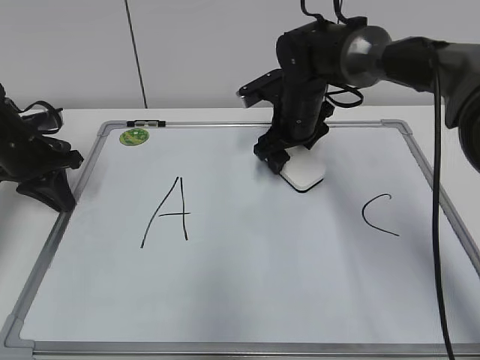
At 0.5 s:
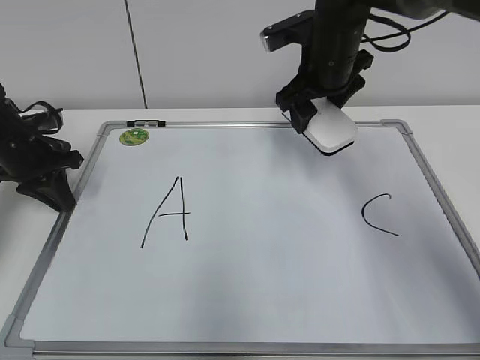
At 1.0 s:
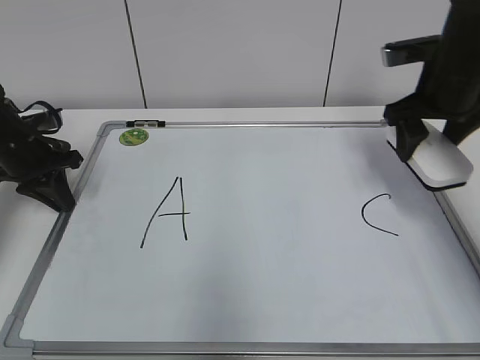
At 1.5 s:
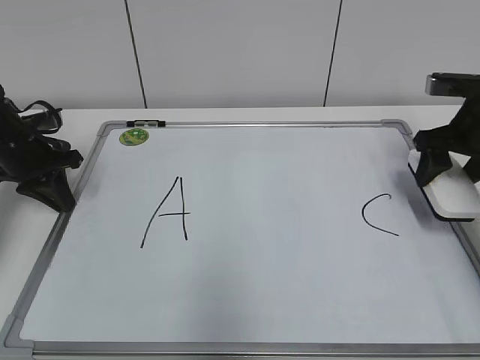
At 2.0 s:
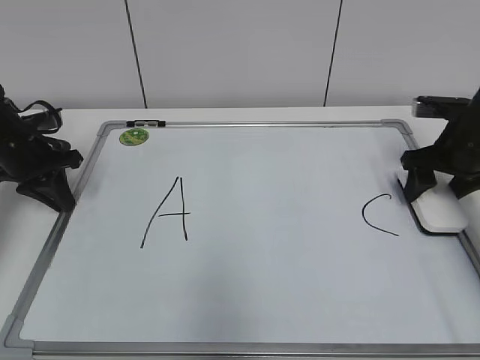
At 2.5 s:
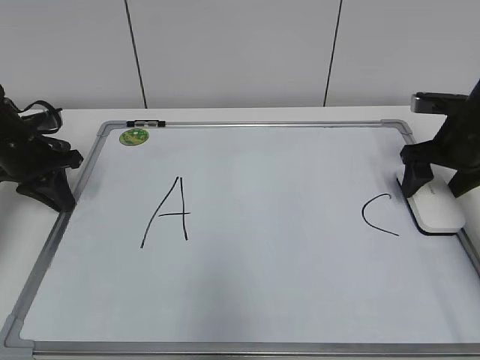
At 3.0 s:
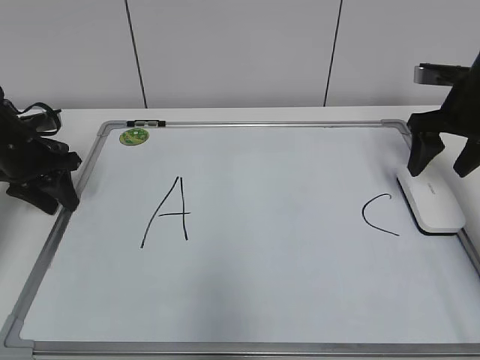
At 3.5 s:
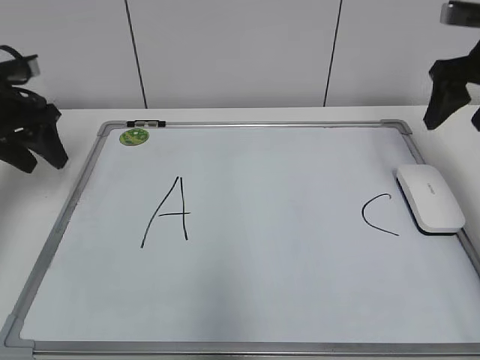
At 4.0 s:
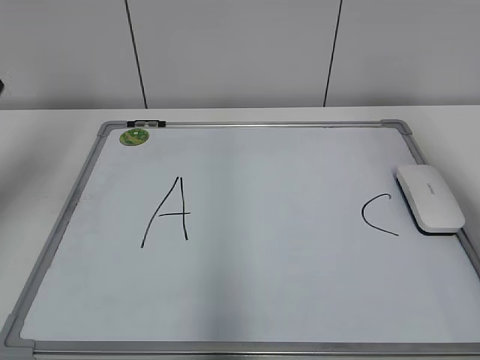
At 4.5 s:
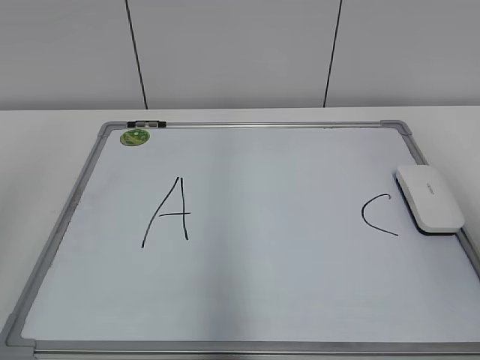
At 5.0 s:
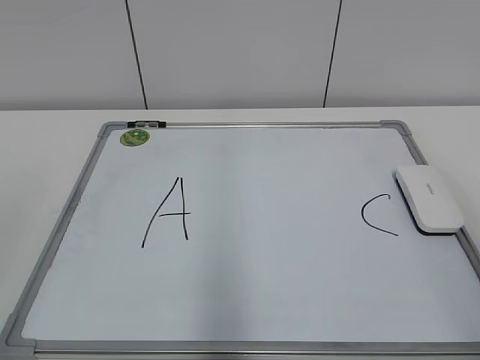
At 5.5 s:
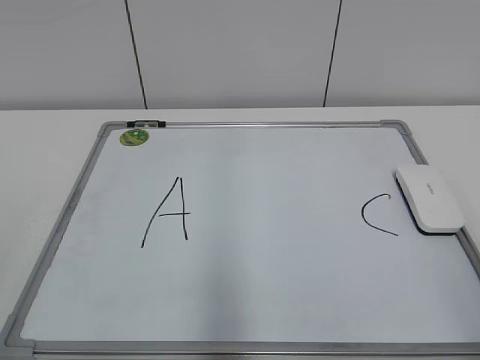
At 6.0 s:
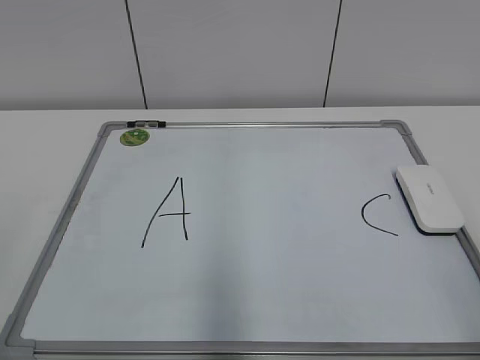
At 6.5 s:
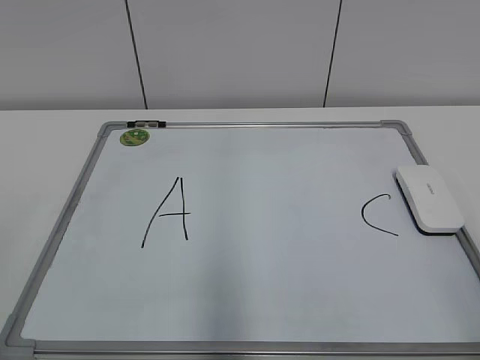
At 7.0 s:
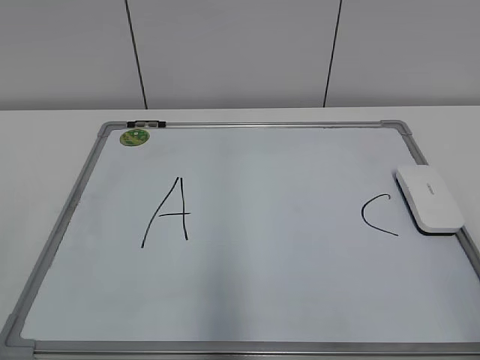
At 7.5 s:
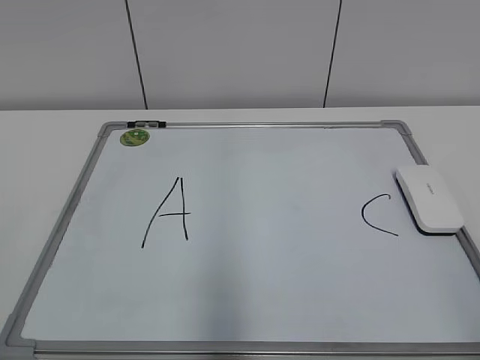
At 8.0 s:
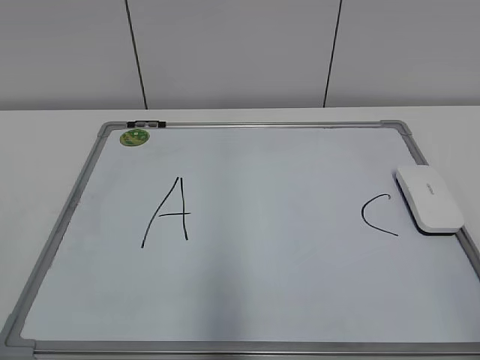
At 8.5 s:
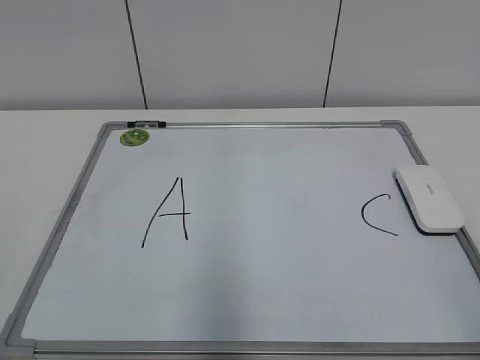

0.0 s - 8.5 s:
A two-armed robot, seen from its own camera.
Task of the whole recording: pick up the eraser on the blackboard and erase the letter "B".
Step, 0.0 s - 2.0 s: Put down the eraser with your right hand.
0.0 s - 2.0 s: The right gripper moves to the right, about 20 cm.
2.0 s - 4.0 s: Both grippers move upward and backward, approximately 25 cm. The left gripper opens its fingers.
4.0 s - 6.5 s: The right gripper goes roughly 25 cm backward and downward, while the left gripper heads backward, covering approximately 30 cm.

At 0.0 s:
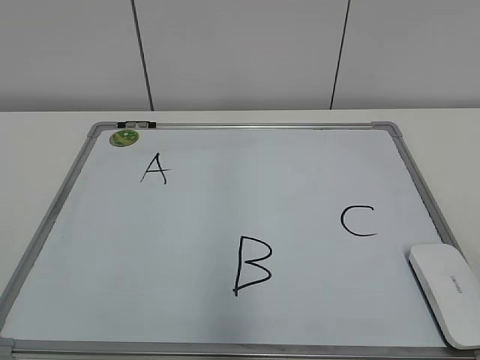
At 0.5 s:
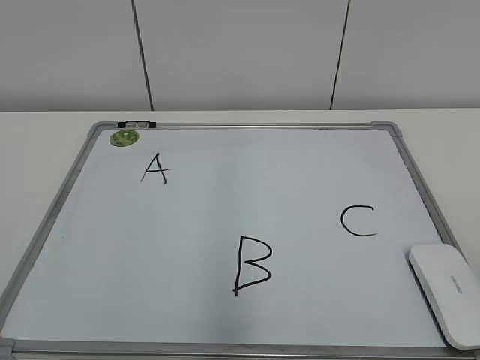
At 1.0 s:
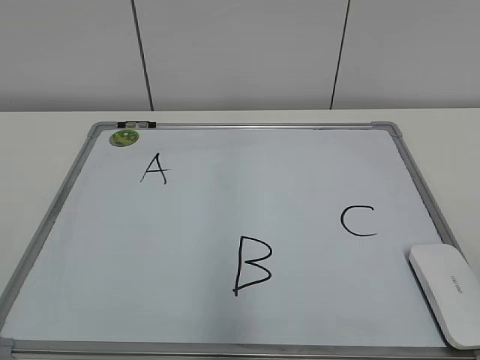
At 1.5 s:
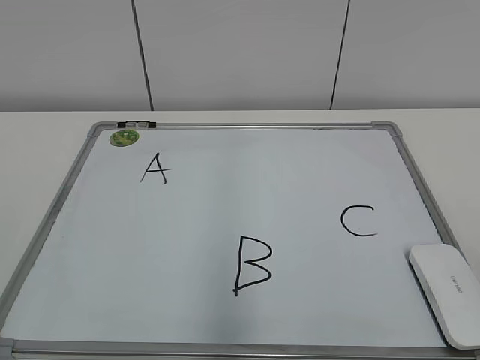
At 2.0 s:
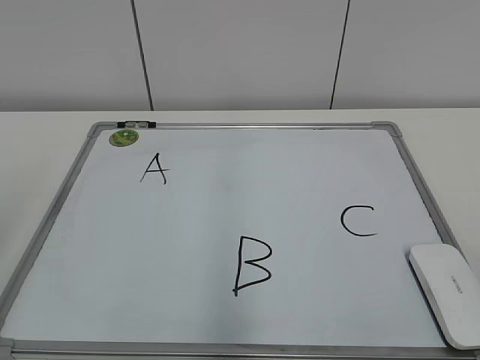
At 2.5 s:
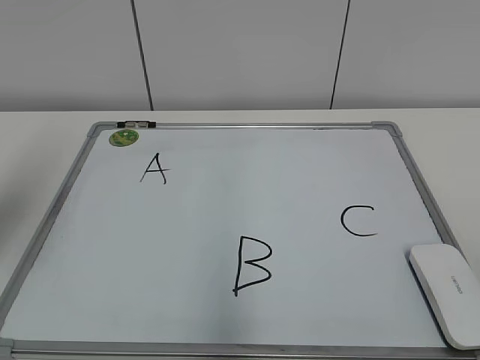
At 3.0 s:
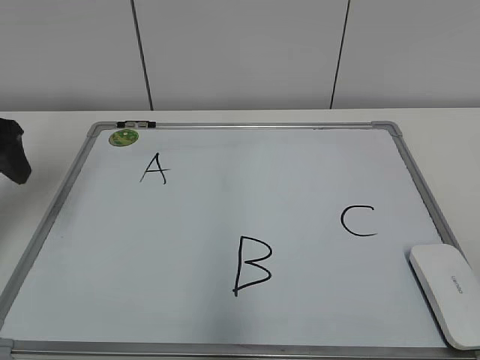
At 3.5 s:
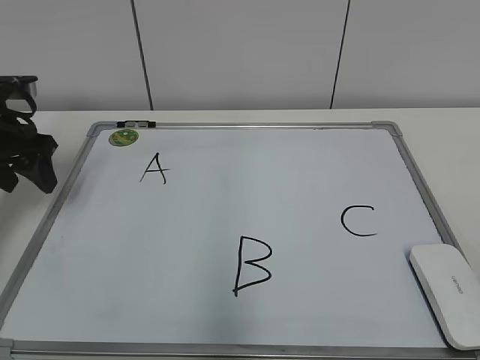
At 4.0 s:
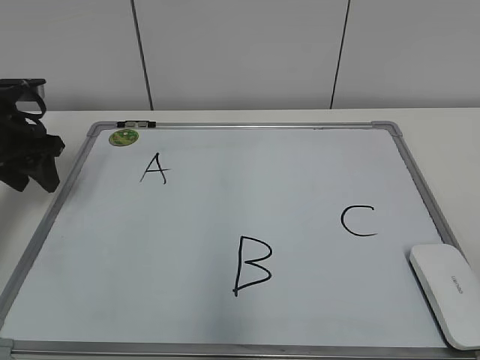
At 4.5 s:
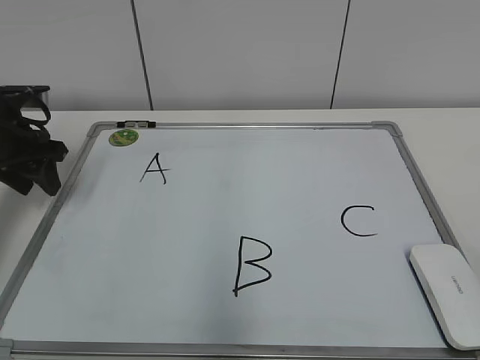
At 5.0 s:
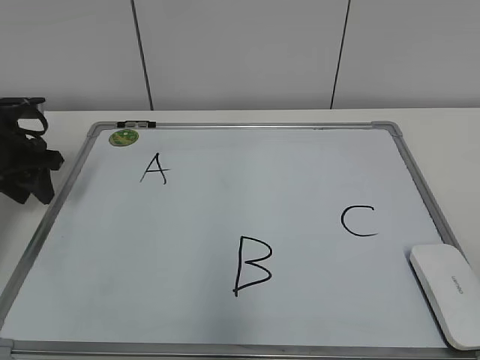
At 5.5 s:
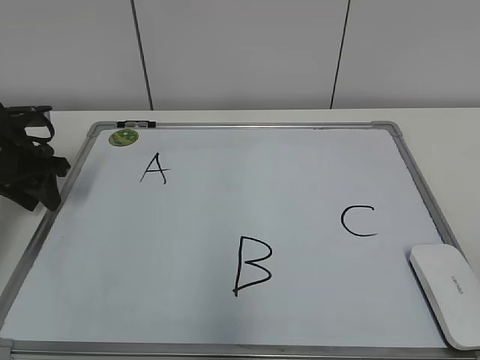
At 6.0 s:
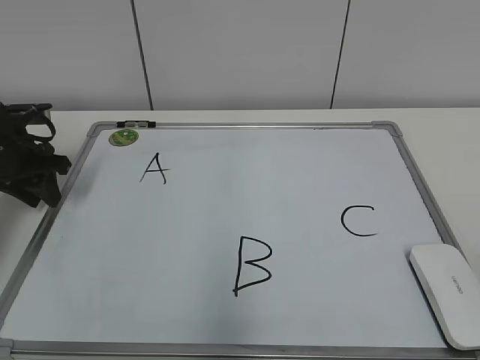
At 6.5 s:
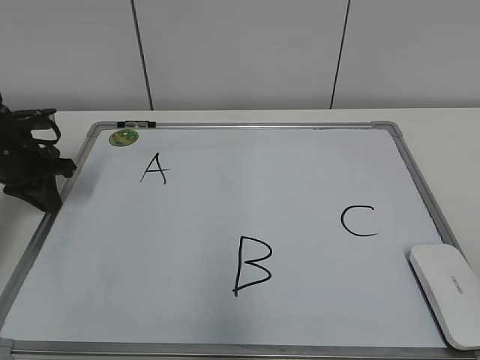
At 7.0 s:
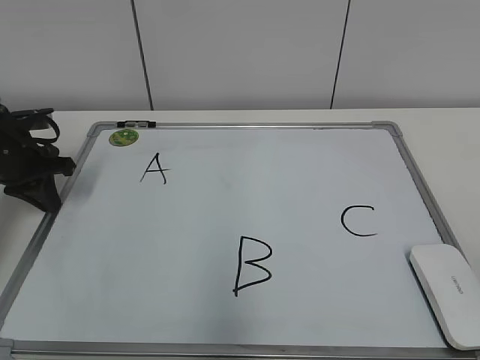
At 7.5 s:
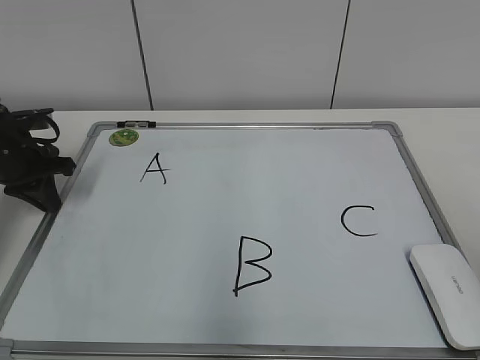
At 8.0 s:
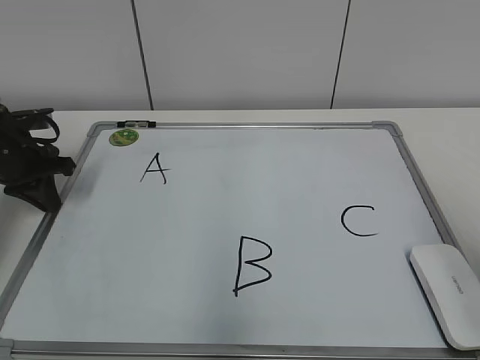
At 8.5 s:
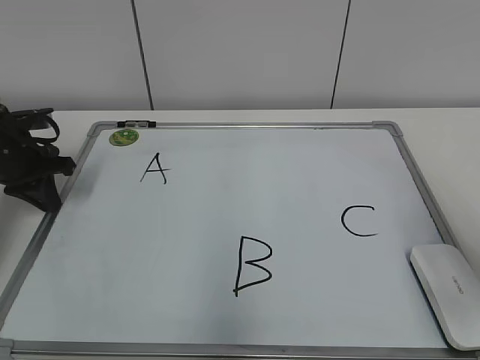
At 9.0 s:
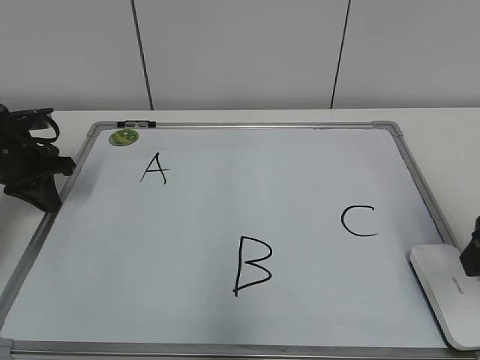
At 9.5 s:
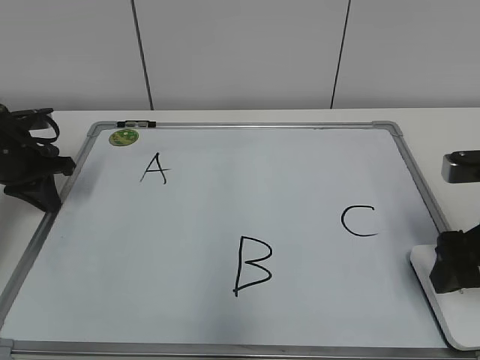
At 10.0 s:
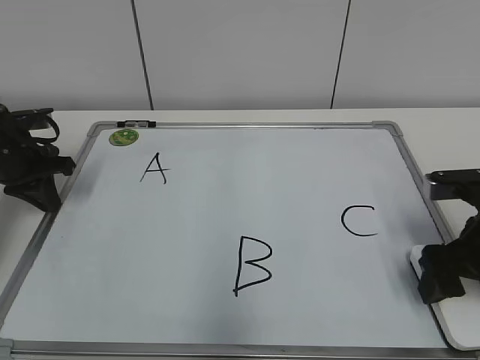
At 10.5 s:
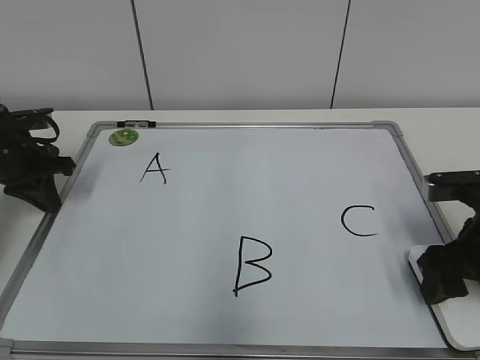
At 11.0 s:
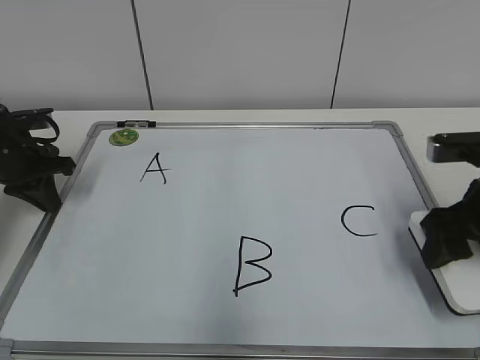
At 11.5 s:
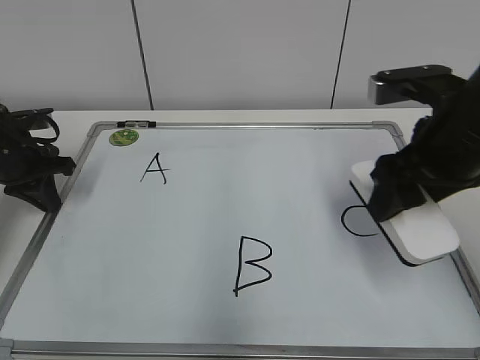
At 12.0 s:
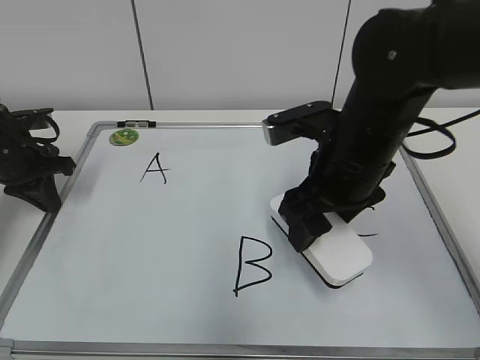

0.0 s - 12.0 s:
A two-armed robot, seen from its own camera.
Task of the whole recording: pick up the eraser on the blackboard and erase the letter "B".
Step, 0.0 s - 7.0 s: Hold the drawing board steady with your left hand.
Step, 7.5 s - 10.0 s: Grab the eraser with your right hand.
2.0 s - 4.0 s: The left gripper moves forward and downward, about 35 cm, and closes its fingers.
4.0 s - 6.0 s: The left gripper moves approximately 5 cm.
6.0 s - 8.0 s: The left gripper closes its fingers.
8.0 s - 10.0 s: The right gripper shifts approximately 20 cm forward and downward, and opens up.
10.0 s - 12.0 s: The right gripper heads to the left and upward, covering roughly 15 cm, and closes its fingers.

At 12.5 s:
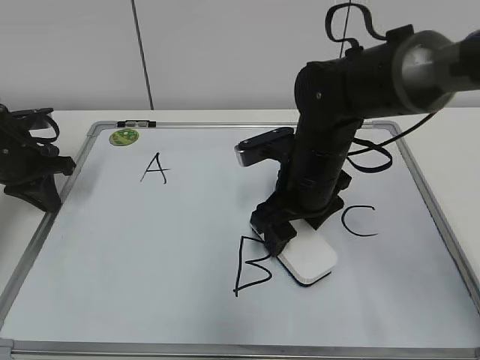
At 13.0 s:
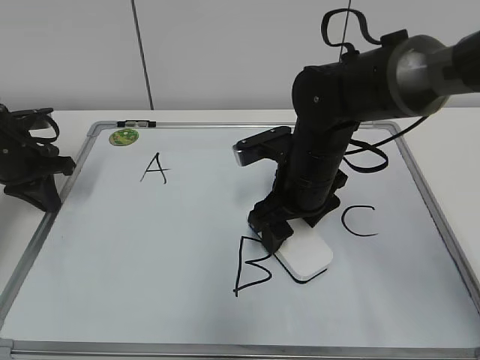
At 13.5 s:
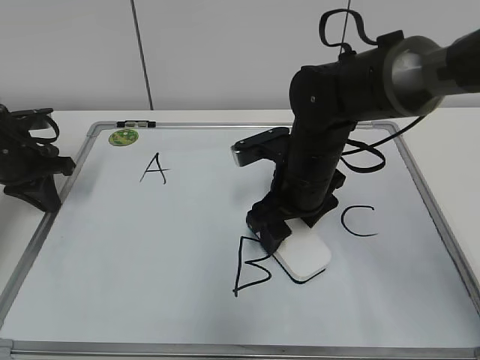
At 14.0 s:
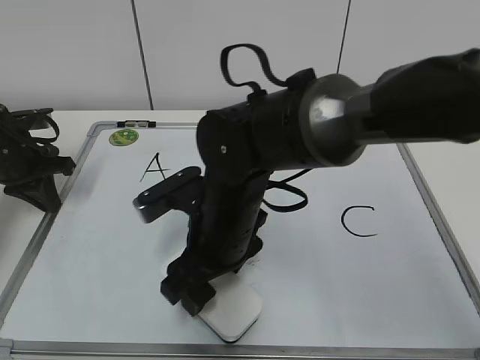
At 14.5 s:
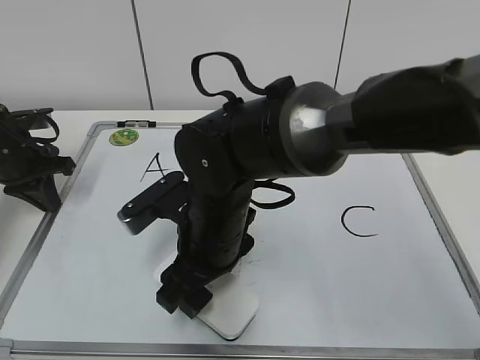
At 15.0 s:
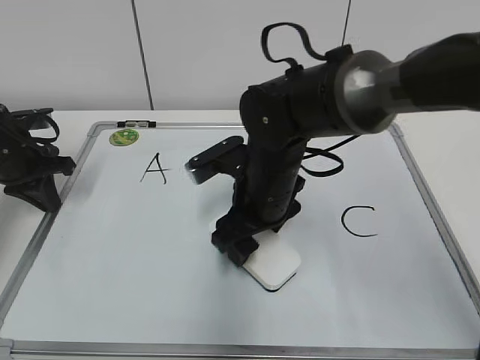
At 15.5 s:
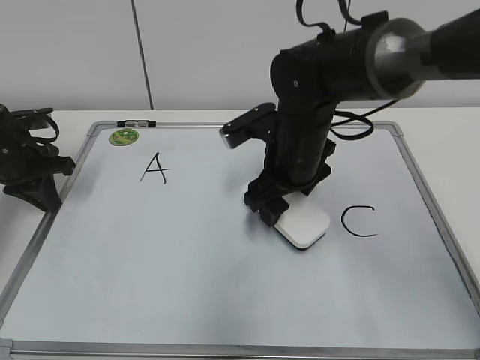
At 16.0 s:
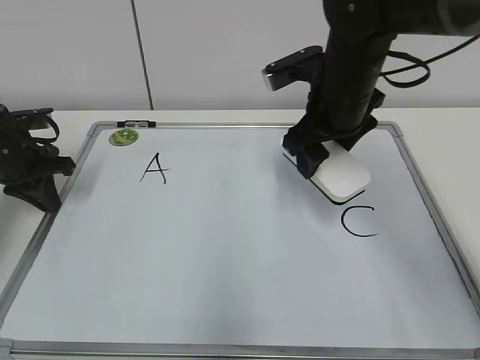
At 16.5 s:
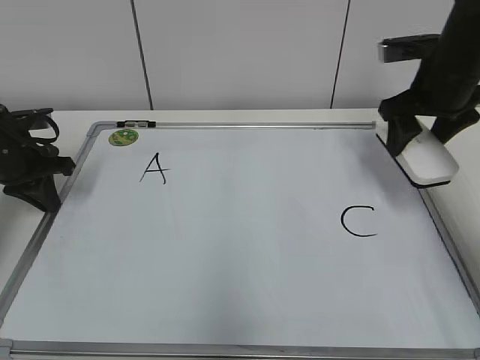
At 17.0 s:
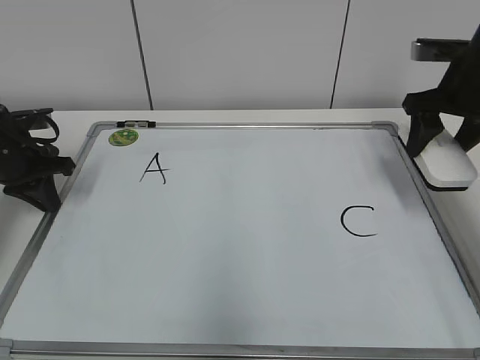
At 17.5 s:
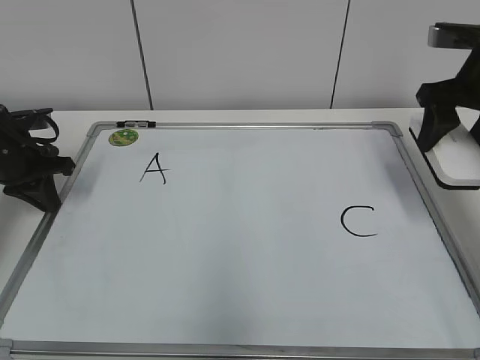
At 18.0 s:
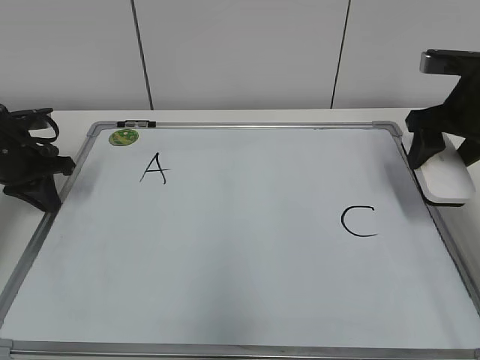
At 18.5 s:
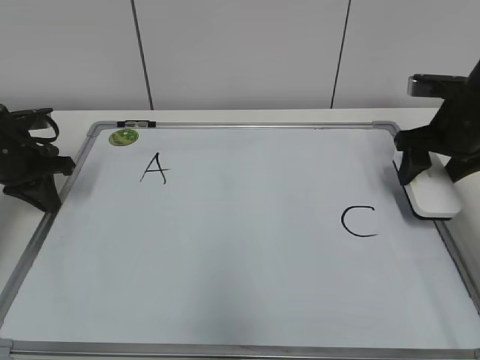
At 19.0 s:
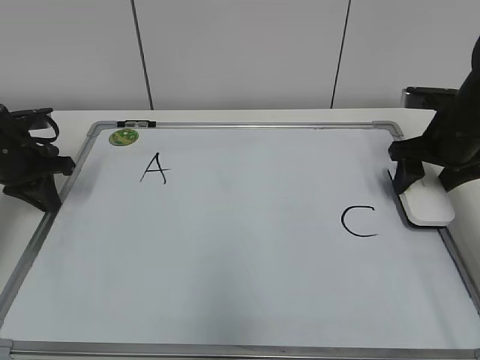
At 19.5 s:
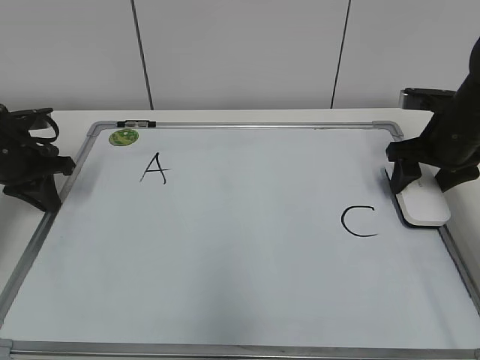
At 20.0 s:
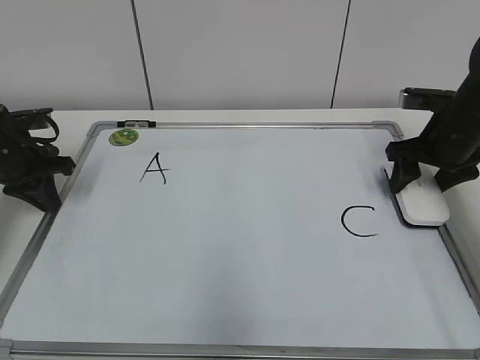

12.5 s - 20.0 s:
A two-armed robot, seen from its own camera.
Task of the whole recording: pick up the eraser on the blackboard and erase the letter "B".
Step, 12.5 s - 15.0 s: Erase the letter B with your right hand.
12.5 s - 14.5 s: The right gripper goes about 15 cm to the left and backward.
14.5 s - 16.5 s: The right gripper travels to the right and forward by about 30 cm.
16.5 s - 18.0 s: The right gripper moves approximately 5 cm.
18.0 s - 20.0 s: The right gripper is displaced downward by about 5 cm.
